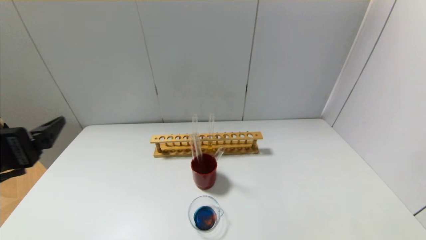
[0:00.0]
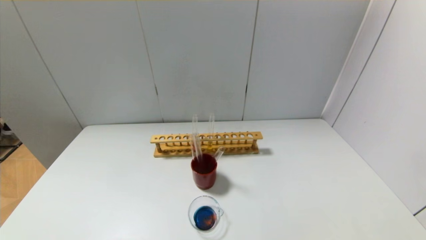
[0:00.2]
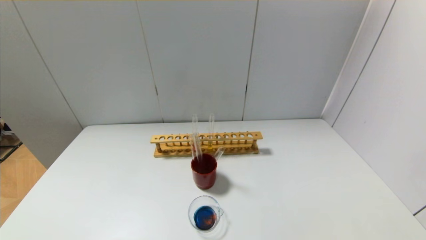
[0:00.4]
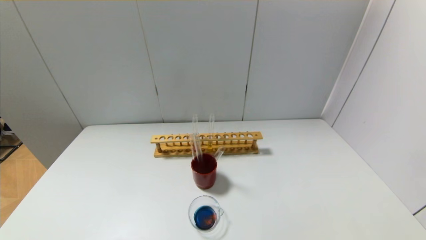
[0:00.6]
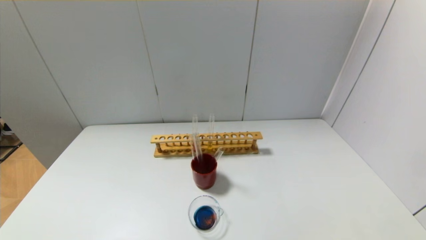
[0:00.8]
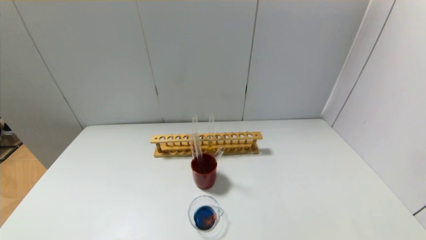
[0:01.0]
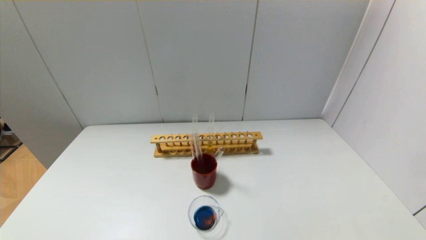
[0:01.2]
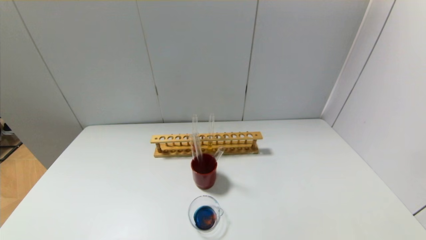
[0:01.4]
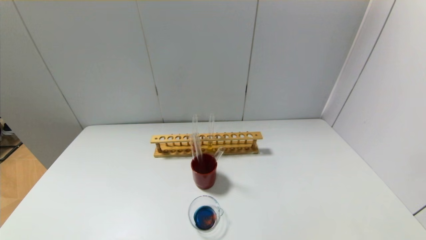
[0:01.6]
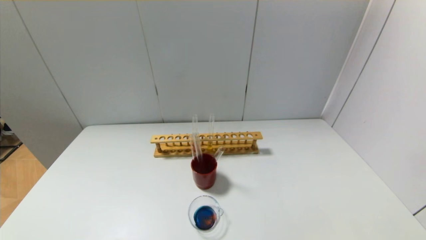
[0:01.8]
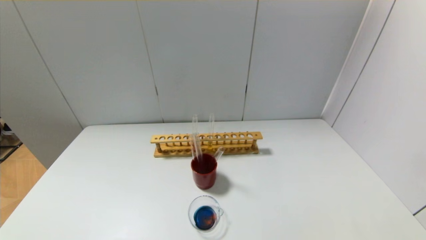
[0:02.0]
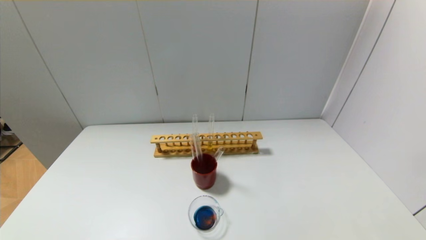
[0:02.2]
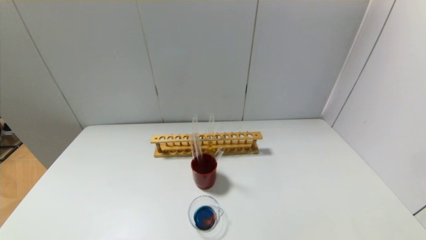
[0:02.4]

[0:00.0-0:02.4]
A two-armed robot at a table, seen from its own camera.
0:00.0 to 0:01.2: The left gripper heads downward and backward, covering approximately 20 cm.
